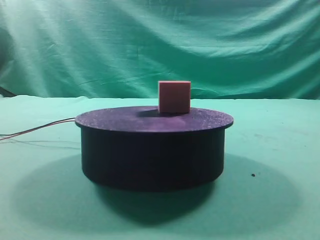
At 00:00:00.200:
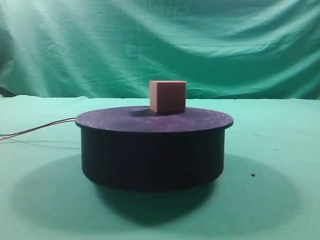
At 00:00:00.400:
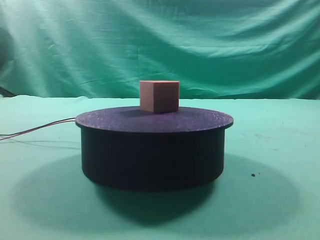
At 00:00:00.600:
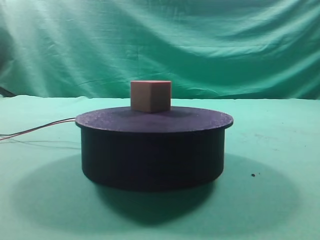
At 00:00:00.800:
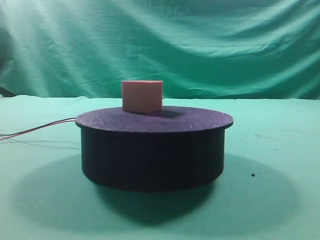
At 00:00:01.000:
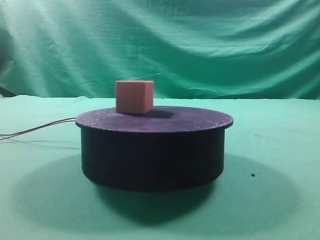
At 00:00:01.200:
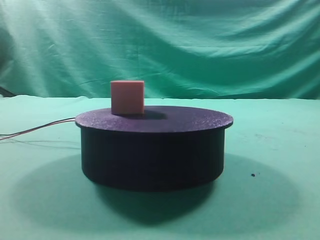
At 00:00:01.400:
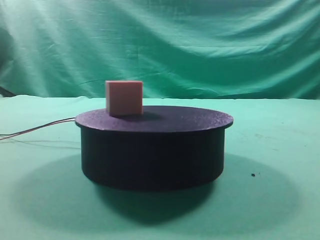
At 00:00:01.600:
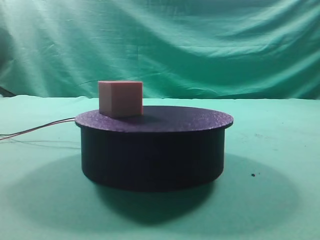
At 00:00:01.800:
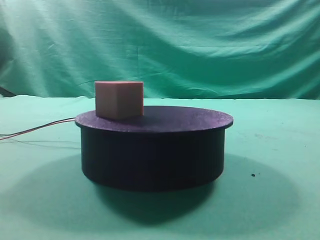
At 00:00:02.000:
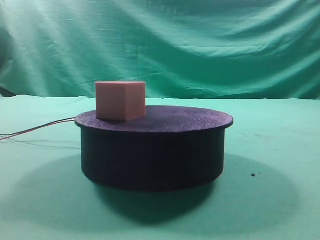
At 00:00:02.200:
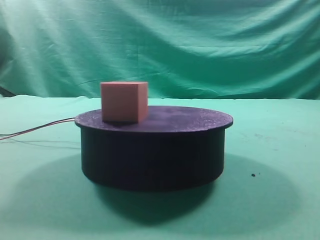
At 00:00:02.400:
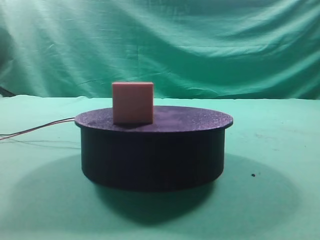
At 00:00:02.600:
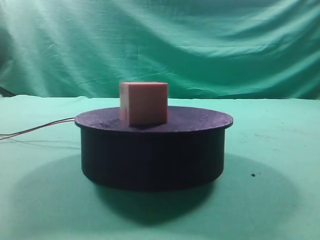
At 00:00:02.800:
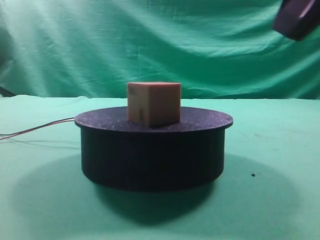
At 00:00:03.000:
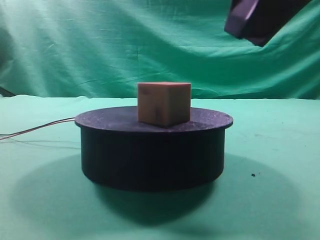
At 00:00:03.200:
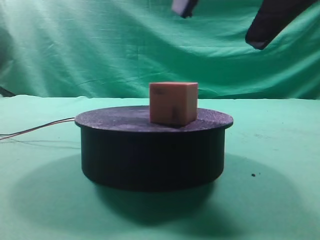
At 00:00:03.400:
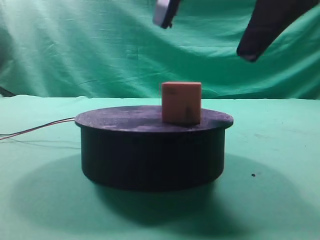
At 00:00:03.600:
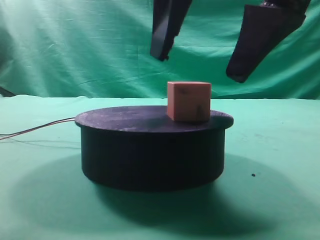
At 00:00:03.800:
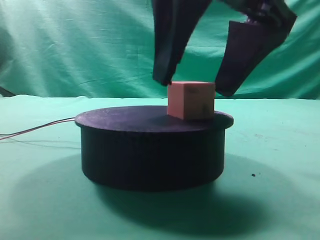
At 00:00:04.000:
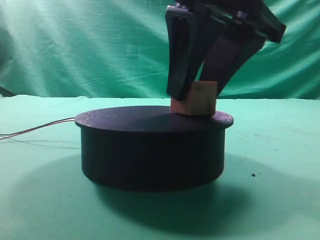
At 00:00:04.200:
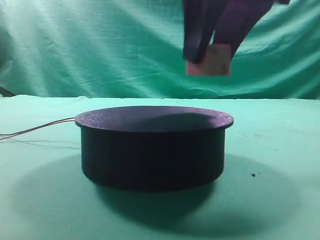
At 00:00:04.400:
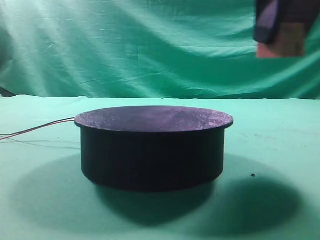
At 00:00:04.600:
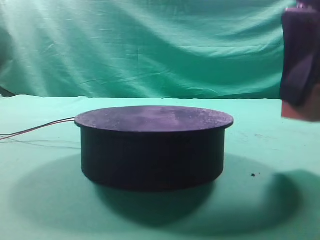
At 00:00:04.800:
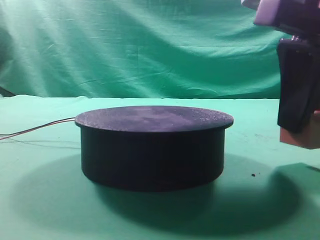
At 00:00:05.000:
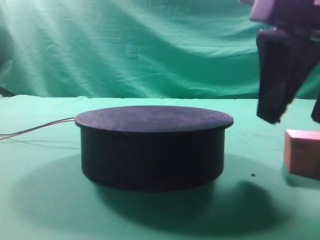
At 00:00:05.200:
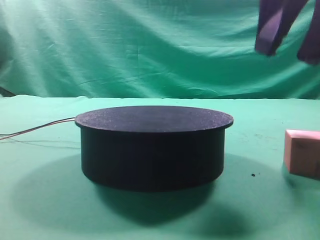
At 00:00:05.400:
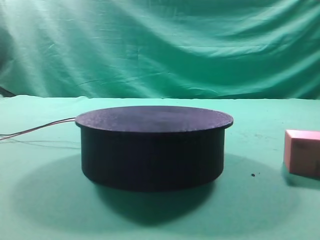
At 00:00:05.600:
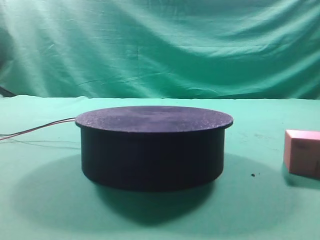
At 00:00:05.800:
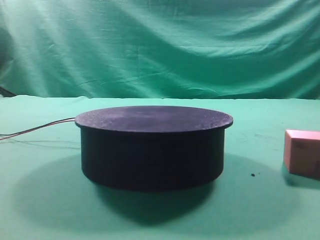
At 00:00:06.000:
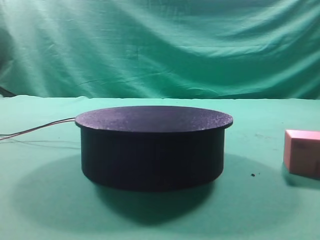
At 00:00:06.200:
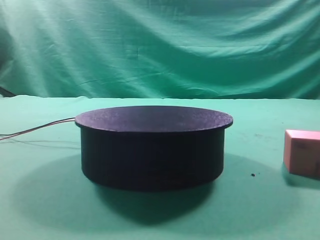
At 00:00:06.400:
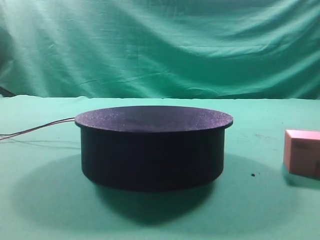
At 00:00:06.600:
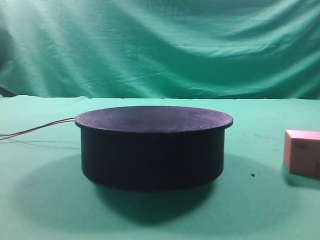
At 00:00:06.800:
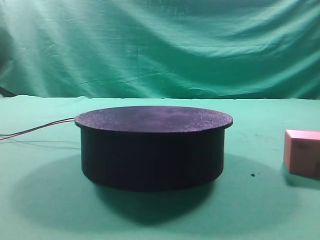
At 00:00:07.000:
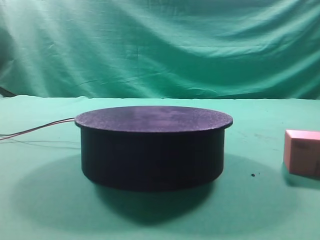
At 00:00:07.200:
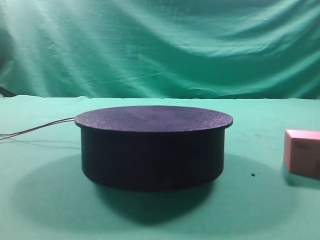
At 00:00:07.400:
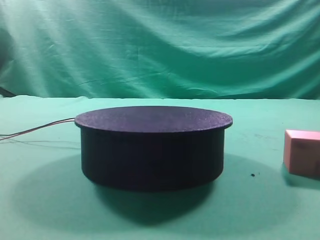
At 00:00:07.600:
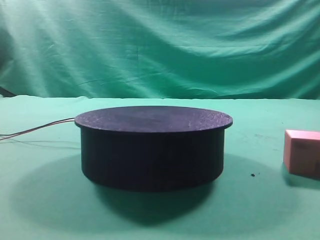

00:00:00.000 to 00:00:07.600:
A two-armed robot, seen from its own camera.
Task of the whole recording: grasp the rotating cube-shaped block on the turntable and place it on the table.
Step, 00:00:00.000 to 00:00:04.000: Grasp the rotating cube-shaped block on the turntable.
Step, 00:00:04.200 to 00:00:05.000: Place the cube on the desk.

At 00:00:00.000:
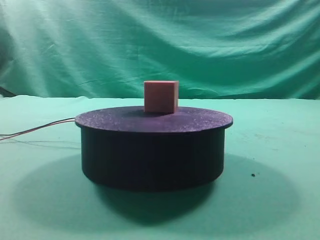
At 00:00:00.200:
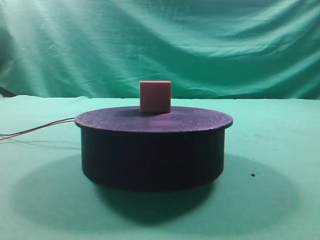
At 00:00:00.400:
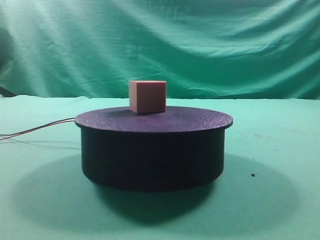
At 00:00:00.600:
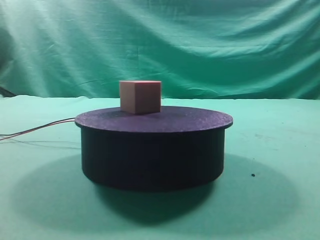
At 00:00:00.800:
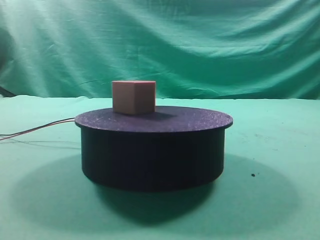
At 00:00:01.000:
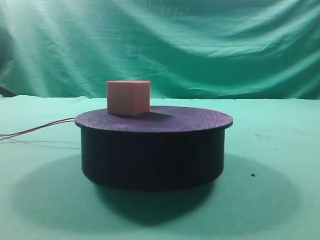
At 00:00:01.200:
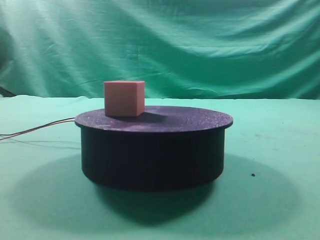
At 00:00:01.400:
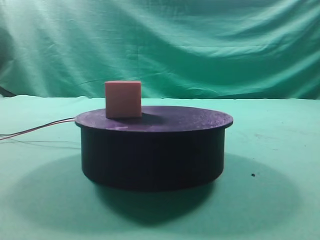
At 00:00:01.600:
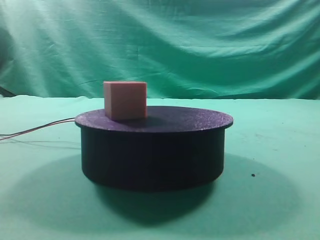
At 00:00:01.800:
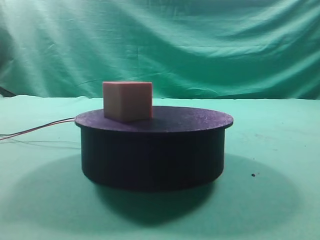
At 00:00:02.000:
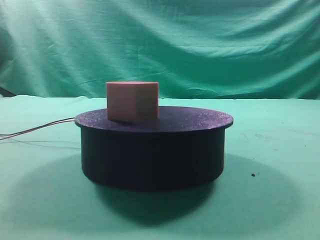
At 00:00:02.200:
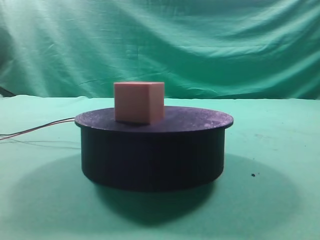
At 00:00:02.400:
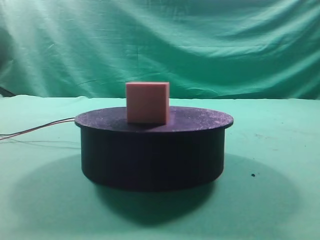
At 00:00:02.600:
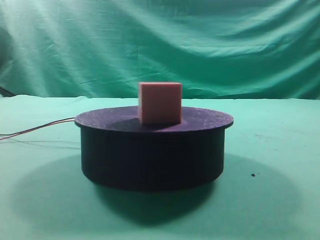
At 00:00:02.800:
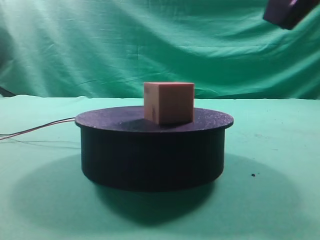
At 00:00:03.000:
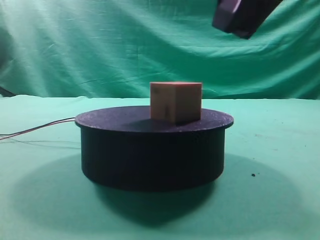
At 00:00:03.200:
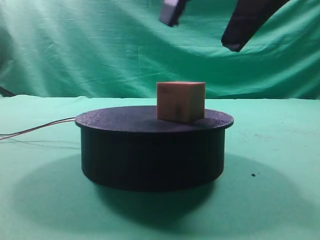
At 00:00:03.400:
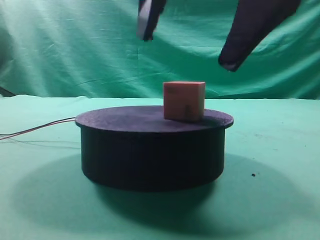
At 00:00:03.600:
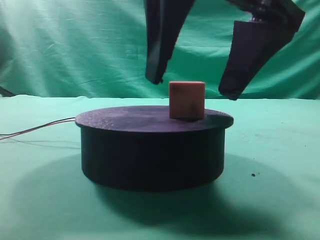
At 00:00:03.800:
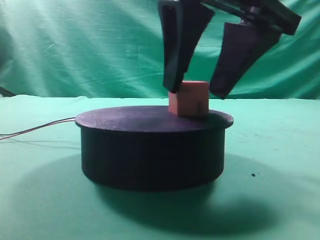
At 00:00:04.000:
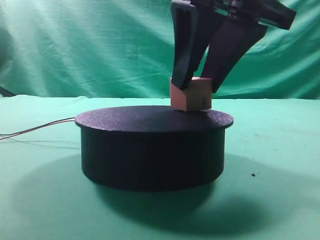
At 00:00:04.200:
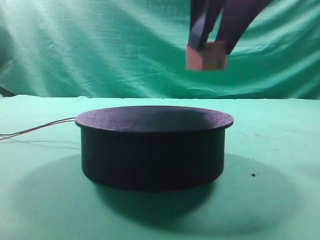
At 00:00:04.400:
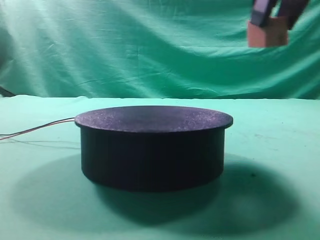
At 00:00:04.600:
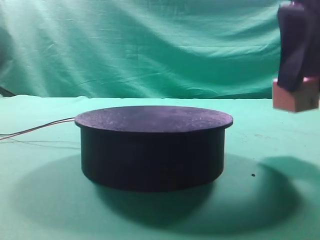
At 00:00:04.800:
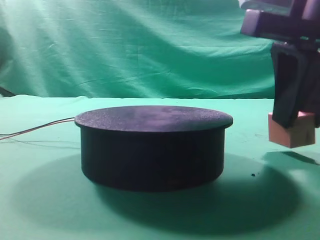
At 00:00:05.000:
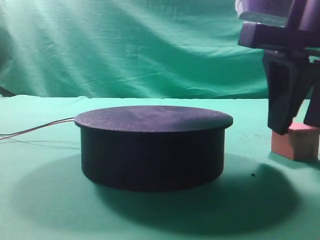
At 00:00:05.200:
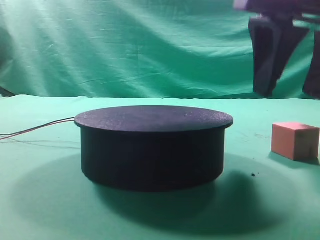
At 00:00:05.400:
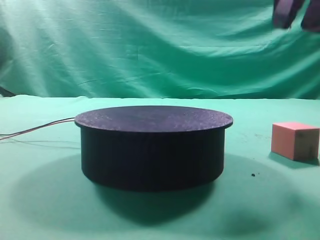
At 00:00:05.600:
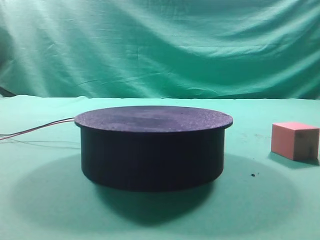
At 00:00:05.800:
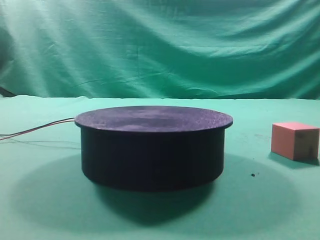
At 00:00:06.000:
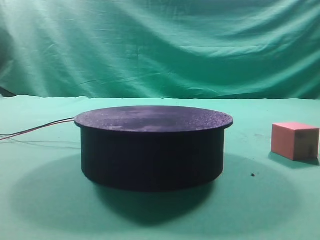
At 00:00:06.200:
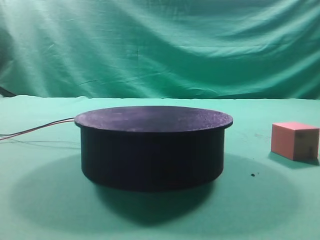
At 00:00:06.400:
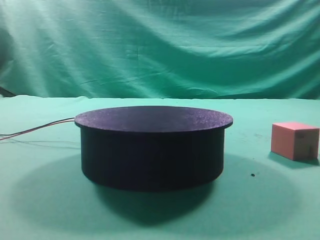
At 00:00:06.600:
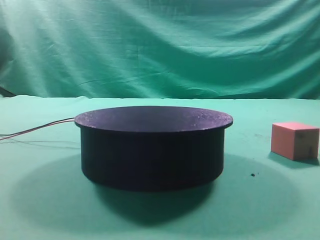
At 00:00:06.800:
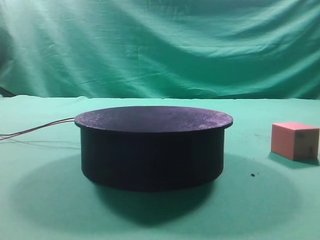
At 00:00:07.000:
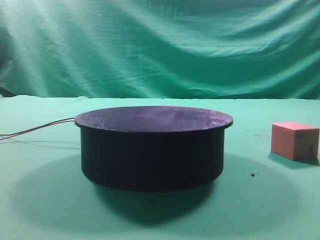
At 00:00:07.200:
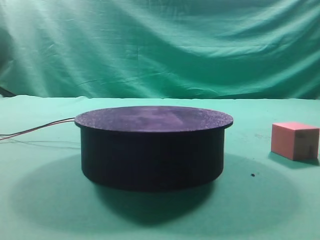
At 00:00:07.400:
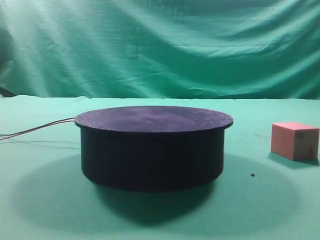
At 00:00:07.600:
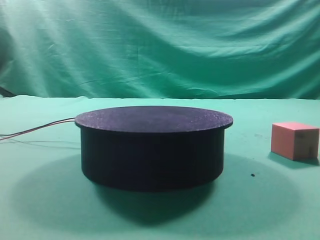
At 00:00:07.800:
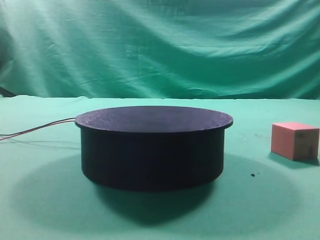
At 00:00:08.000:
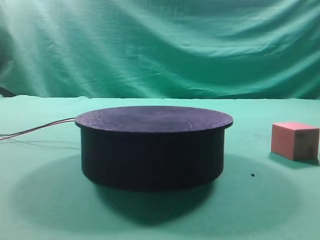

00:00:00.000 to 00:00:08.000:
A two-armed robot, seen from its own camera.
Task of the whole recording: grasp the rotating cube-shaped block on the turntable and place it on the table.
Step, 00:00:00.000 to 00:00:04.000: Grasp the rotating cube-shaped block on the turntable.
Step, 00:00:04.200 to 00:00:05.000: Place the cube on the desk.

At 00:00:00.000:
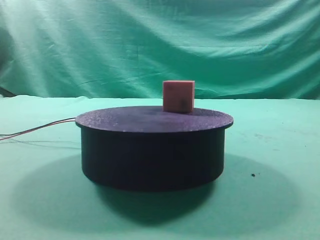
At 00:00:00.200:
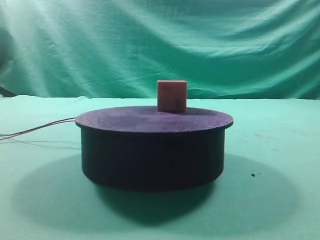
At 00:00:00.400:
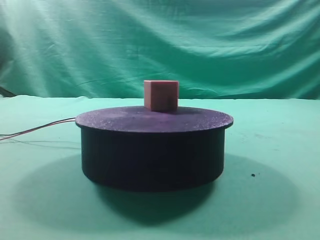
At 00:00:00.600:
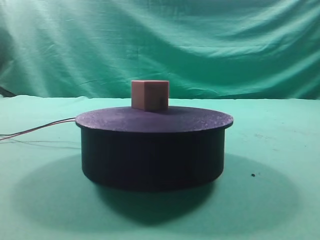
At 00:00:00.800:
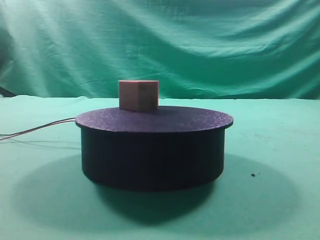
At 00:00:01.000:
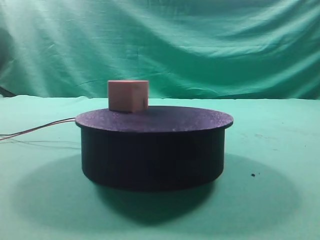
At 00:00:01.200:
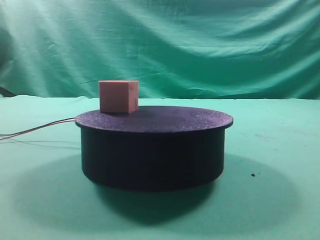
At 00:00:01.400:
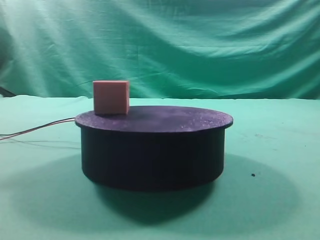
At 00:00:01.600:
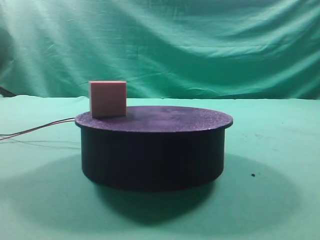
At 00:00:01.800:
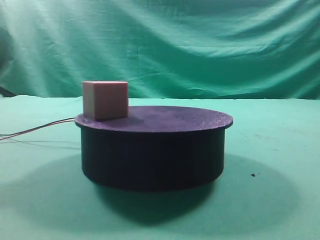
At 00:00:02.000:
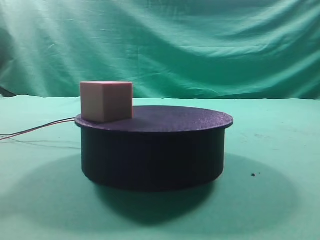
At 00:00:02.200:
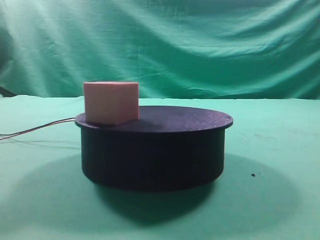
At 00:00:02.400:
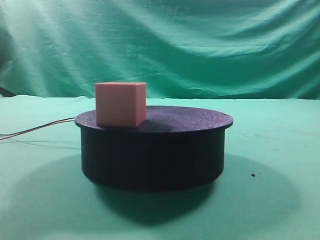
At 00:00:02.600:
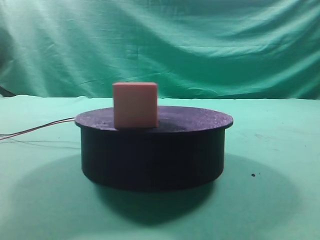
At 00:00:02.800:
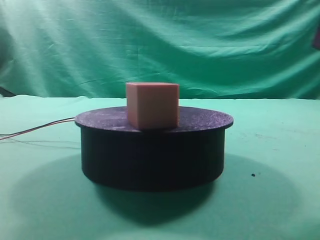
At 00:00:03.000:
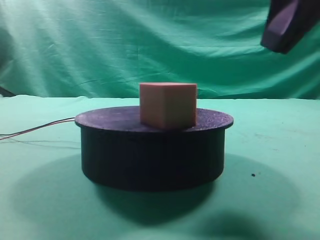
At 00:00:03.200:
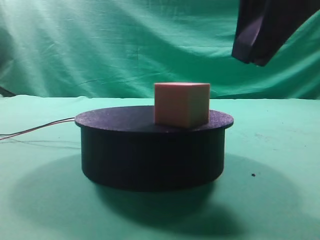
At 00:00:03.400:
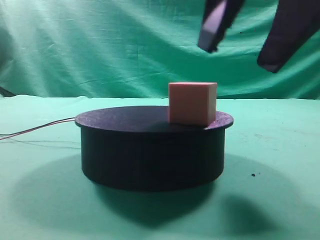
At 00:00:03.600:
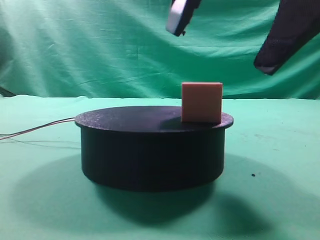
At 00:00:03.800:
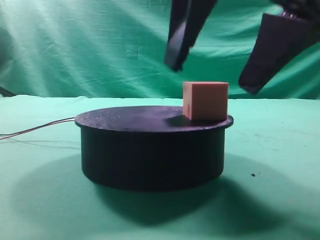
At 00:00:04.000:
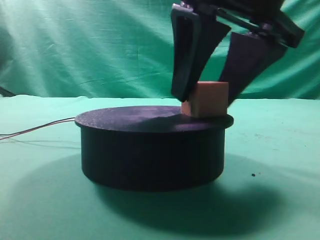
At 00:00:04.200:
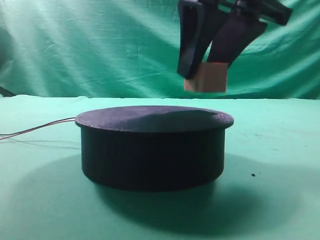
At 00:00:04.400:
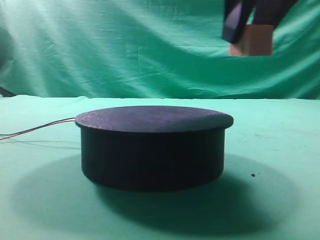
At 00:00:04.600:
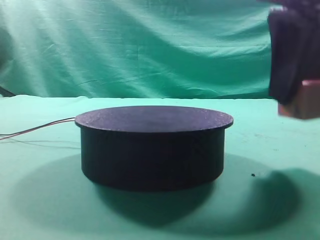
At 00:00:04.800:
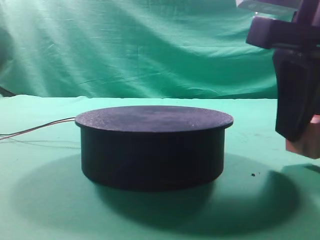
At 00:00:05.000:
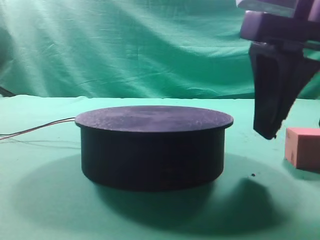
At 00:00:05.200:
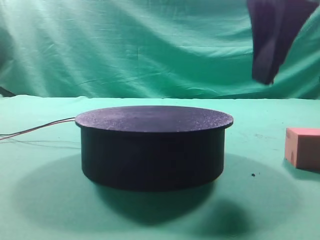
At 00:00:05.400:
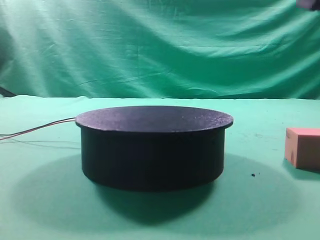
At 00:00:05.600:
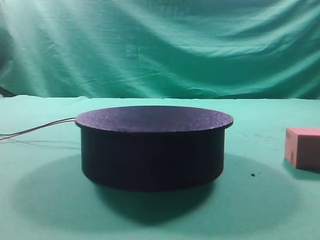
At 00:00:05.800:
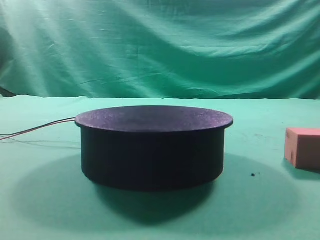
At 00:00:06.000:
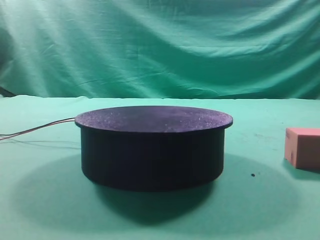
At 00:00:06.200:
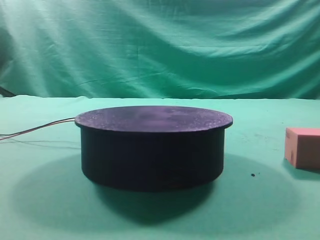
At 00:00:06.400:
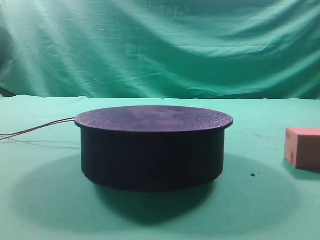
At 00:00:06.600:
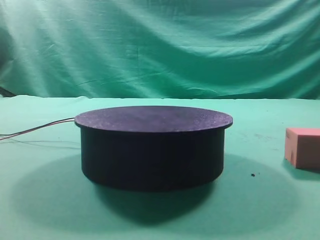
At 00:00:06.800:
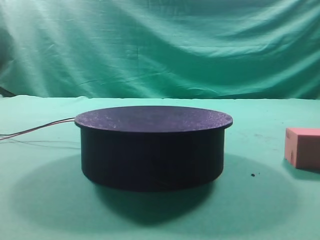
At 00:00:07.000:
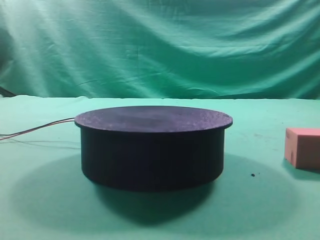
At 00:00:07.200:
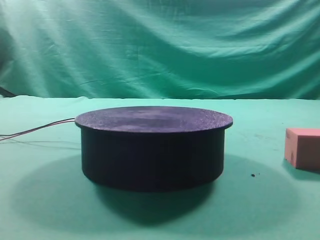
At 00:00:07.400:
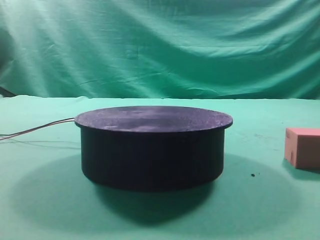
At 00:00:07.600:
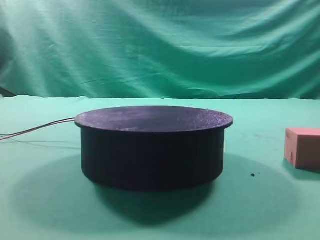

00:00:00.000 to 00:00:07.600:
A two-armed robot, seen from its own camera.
Task of the whole recording: grasp the rotating cube-shaped block on the turntable and place it on the table.
Step, 00:00:00.000 to 00:00:04.200: Grasp the rotating cube-shaped block on the turntable.
Step, 00:00:04.400 to 00:00:05.000: Place the cube on the desk.
